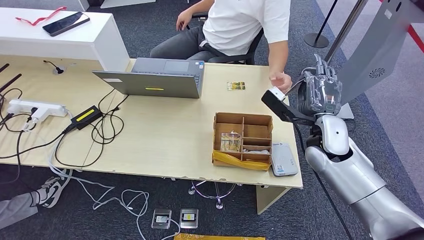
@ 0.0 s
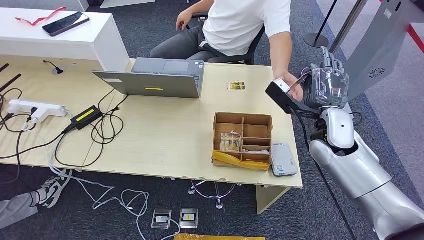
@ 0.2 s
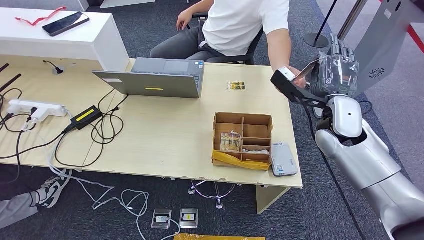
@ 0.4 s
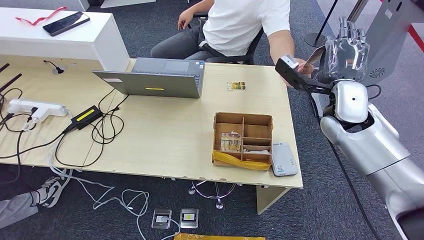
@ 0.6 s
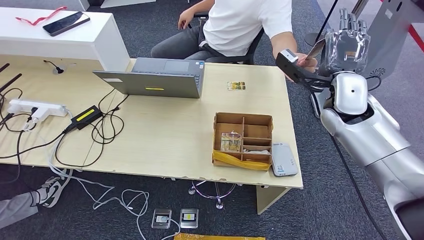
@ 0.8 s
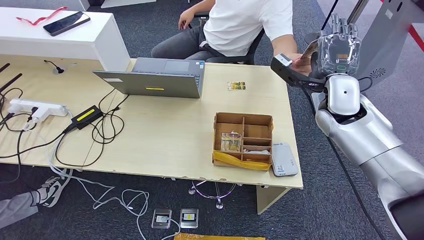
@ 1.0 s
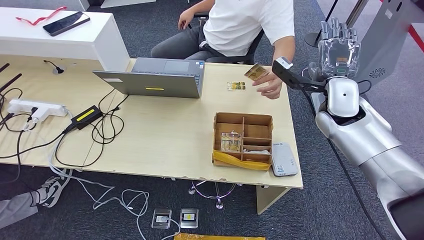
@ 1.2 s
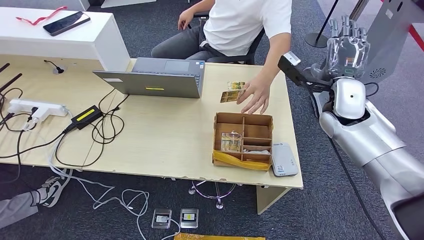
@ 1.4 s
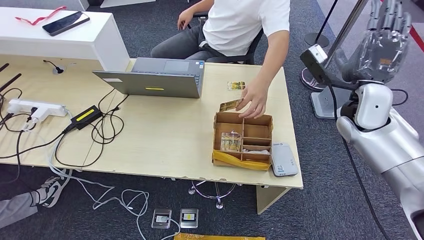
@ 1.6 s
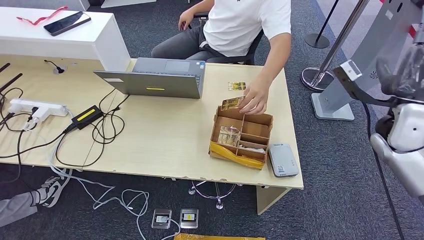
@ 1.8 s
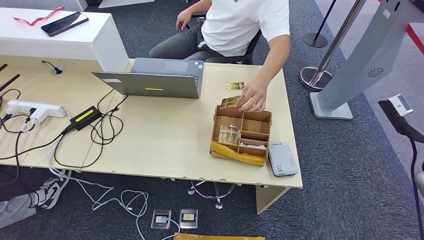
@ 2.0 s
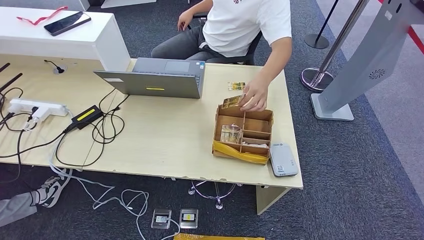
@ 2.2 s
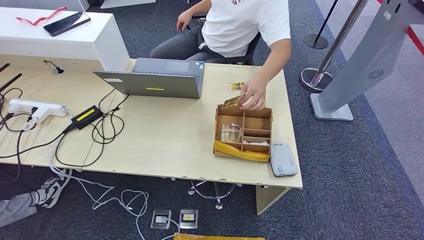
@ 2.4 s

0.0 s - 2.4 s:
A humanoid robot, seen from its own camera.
Step, 0.0 s - 2.4 s: Hand the room key to the person.
0.0 s - 1.2 s: The right hand shifts about 10 cm upward and forward.
1.2 s - 2.4 s: The right hand heads to the right and backward, covering about 35 cm.
